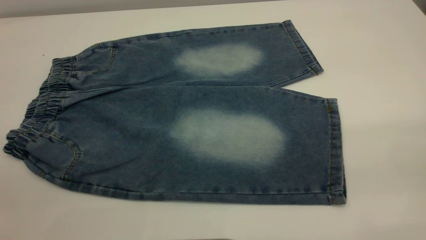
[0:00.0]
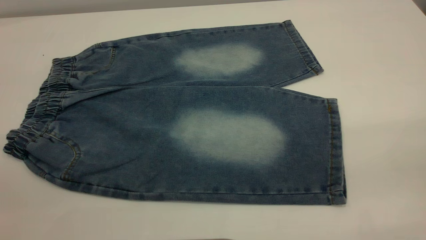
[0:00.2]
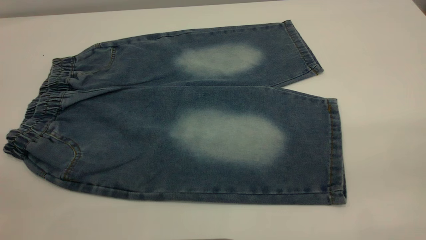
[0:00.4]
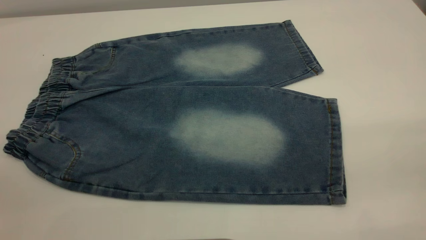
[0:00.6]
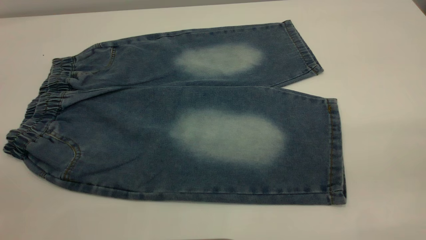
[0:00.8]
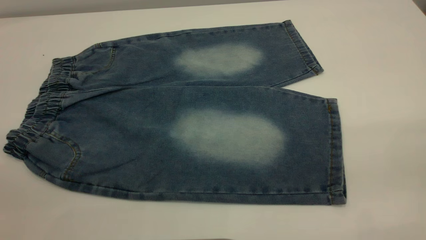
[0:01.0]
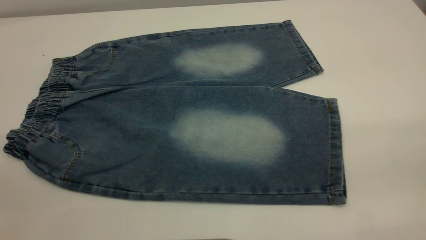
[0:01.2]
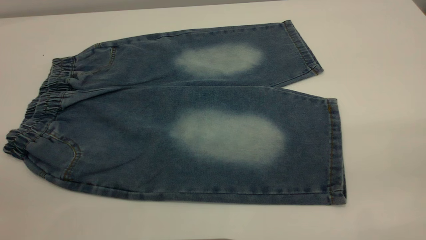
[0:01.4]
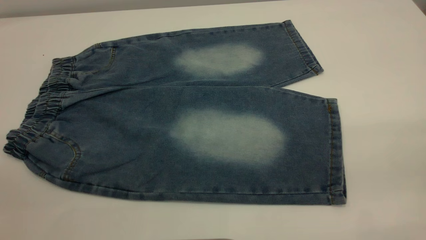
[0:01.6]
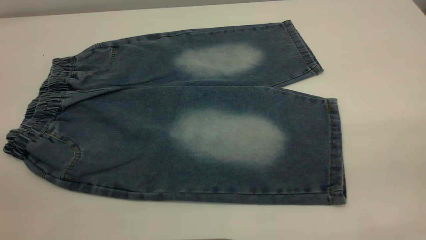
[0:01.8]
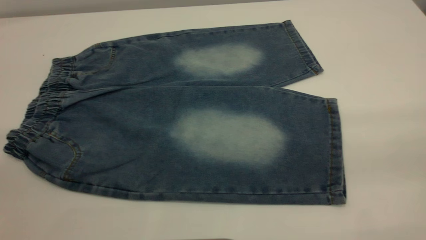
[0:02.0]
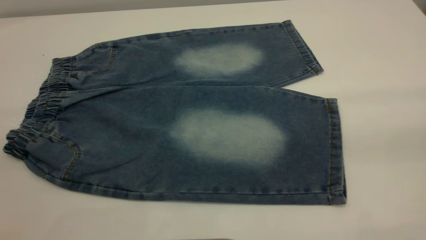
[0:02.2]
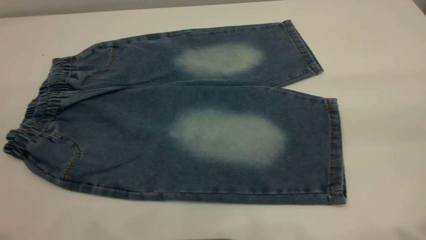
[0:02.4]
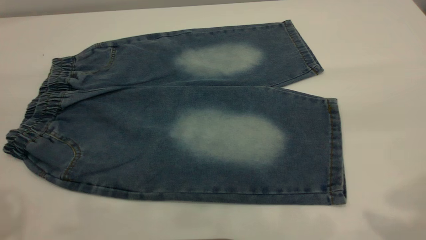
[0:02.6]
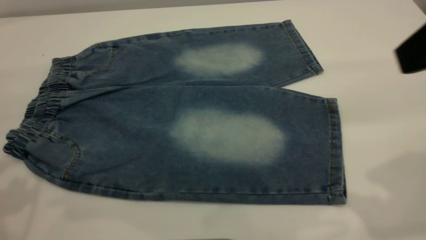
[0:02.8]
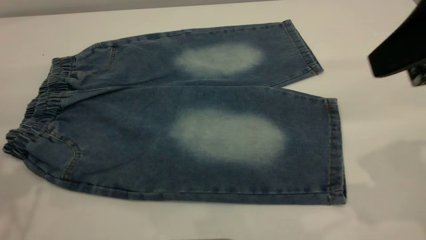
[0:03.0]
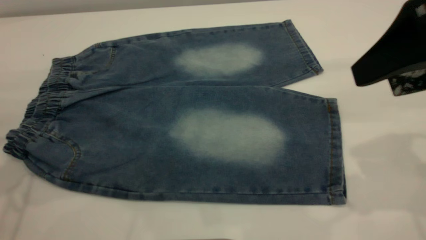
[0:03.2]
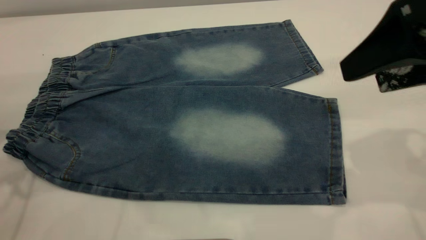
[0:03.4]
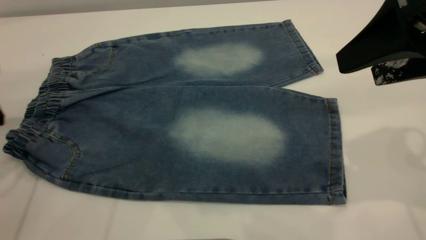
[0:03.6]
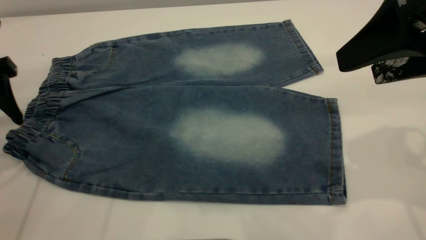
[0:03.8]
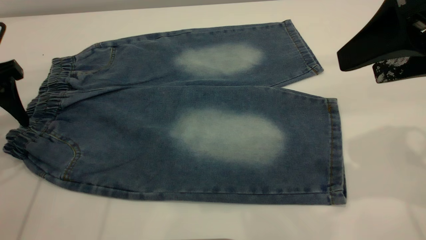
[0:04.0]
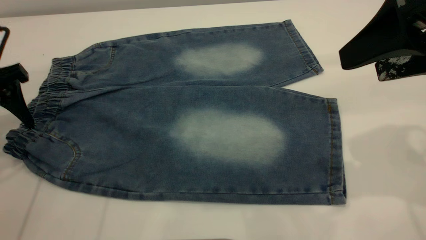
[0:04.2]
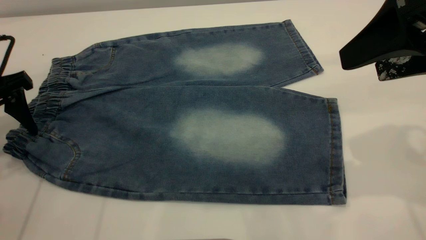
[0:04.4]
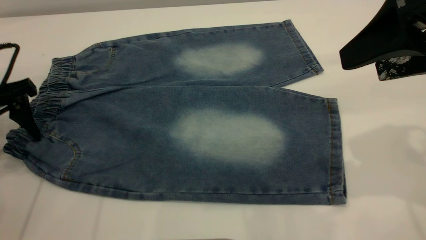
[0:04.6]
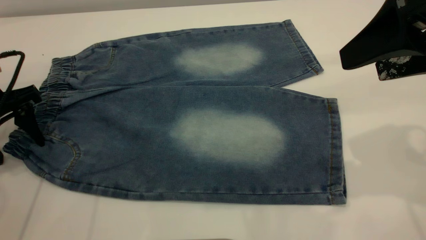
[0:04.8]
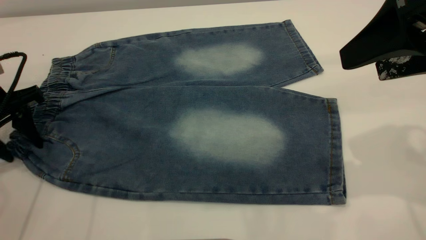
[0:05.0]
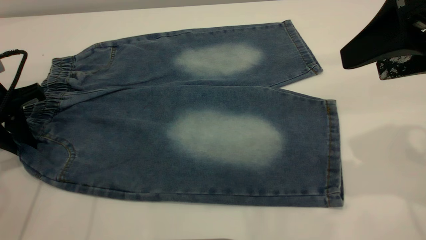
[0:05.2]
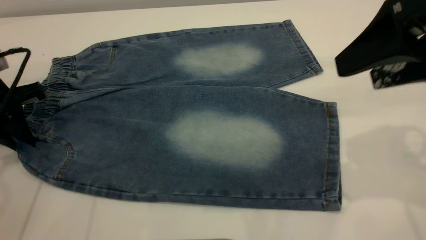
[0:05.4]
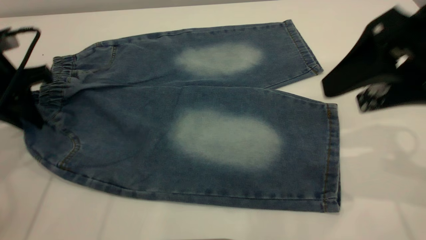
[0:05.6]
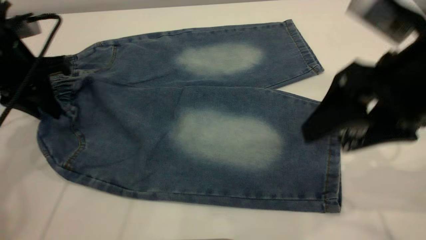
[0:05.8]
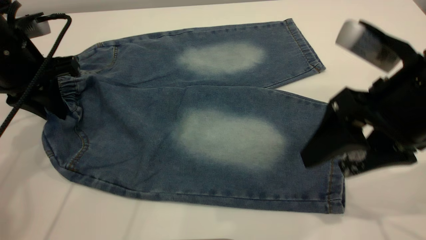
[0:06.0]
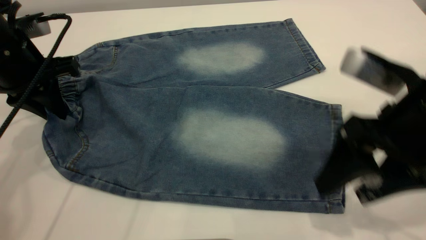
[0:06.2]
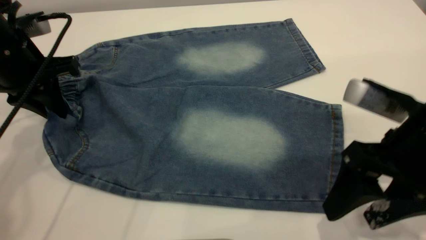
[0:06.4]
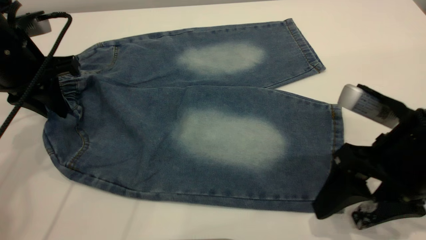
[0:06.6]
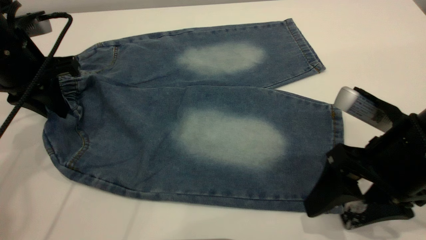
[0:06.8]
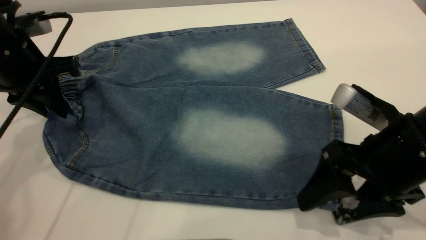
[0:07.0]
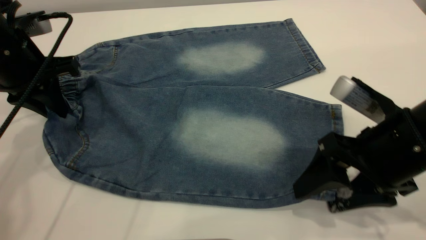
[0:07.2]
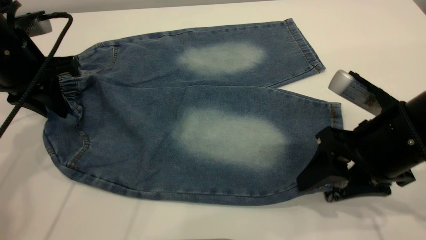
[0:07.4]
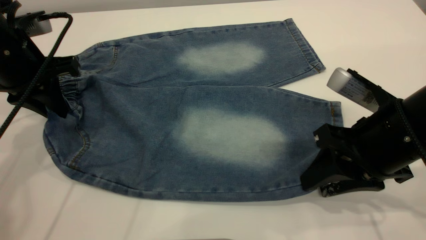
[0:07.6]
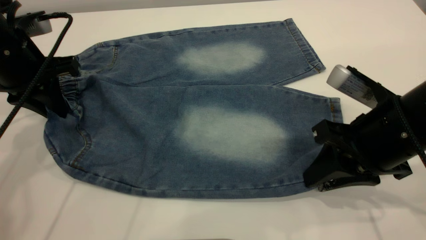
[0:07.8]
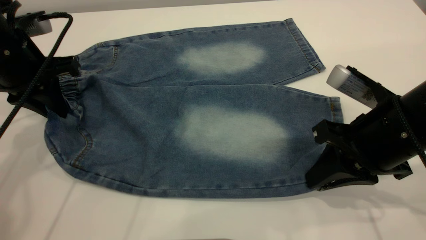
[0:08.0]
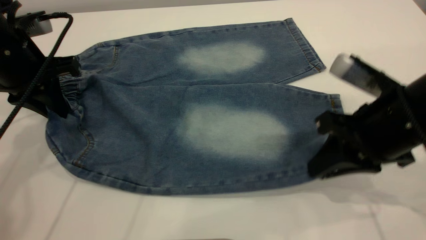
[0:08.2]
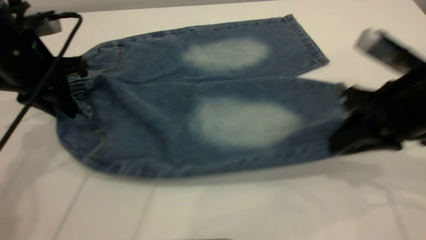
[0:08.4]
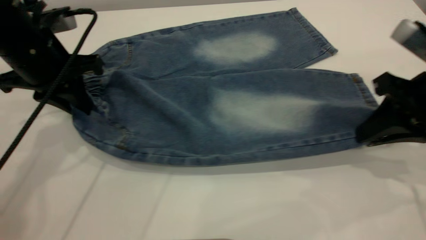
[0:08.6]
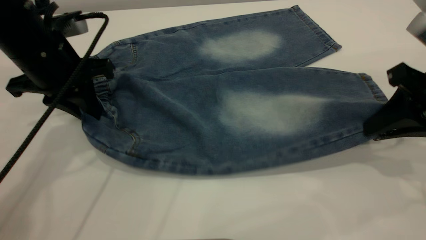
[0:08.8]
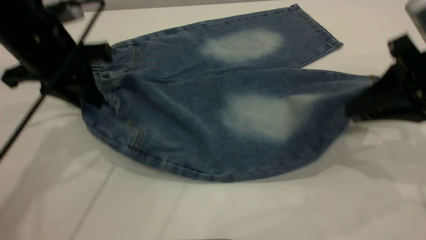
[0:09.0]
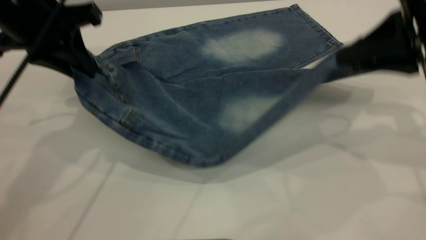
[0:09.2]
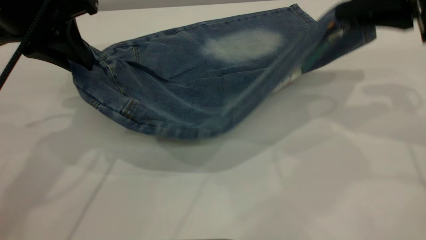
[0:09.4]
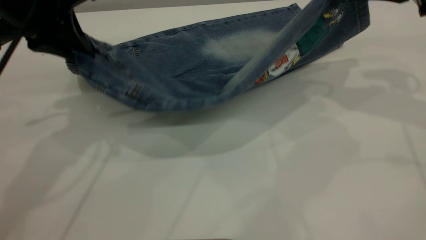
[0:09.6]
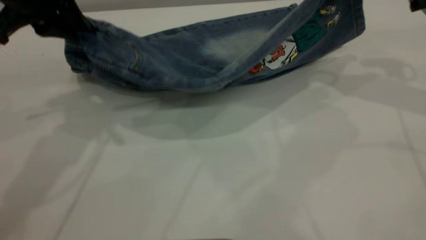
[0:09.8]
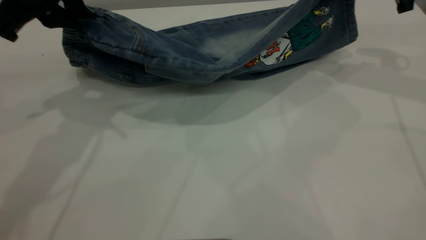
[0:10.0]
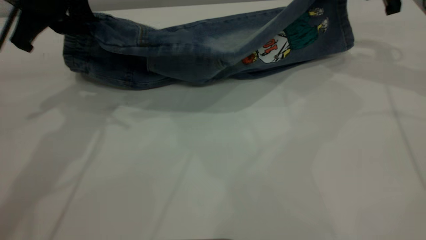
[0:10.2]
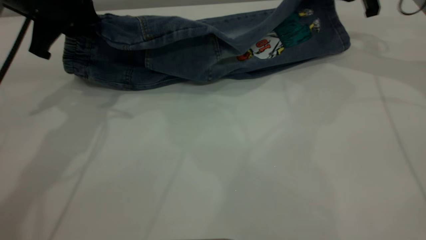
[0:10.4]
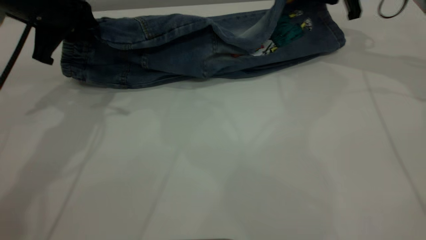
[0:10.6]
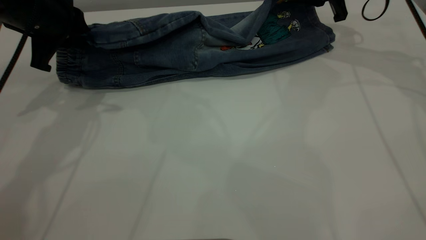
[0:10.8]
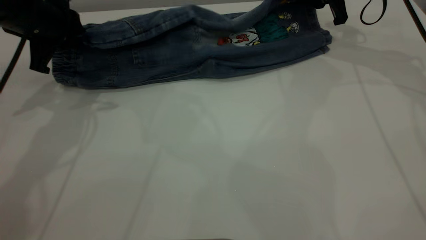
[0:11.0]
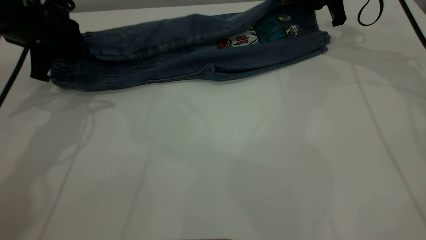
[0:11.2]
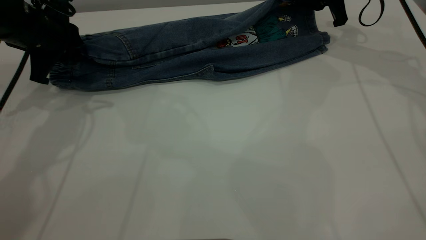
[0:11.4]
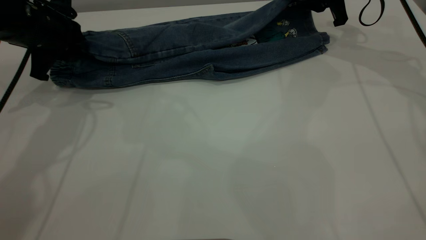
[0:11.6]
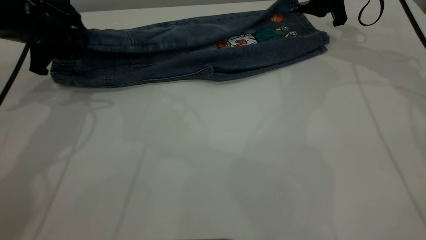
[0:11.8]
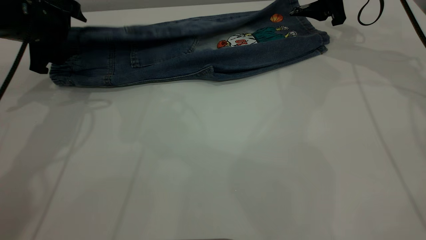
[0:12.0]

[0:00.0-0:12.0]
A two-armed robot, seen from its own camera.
0:00.0 to 0:01.6: The two grippers keep their place.
0:01.6 to 0:03.0: The right gripper goes roughly 20 cm forward.
0:03.0 to 0:04.4: The left gripper heads downward and forward, covering approximately 15 cm.
0:04.4 to 0:06.0: The left gripper heads to the right, covering some 5 cm, and closes its fingers, while the right gripper travels downward by about 10 cm.
0:06.0 to 0:07.6: The right gripper is displaced downward by about 5 cm, and closes.
0:07.6 to 0:09.0: The right gripper goes some 10 cm upward and to the right; the left gripper moves to the right, about 5 cm.
0:09.0 to 0:10.4: The right gripper goes some 20 cm forward.
0:10.4 to 0:12.0: The right gripper changes place by roughly 5 cm, and opens up. The left gripper ends up about 5 cm from where it was, and opens up.

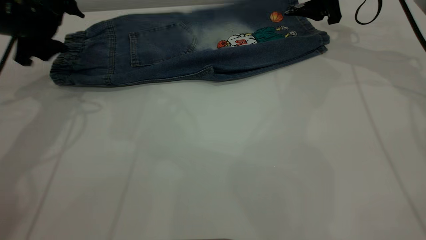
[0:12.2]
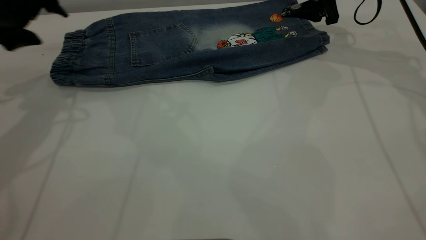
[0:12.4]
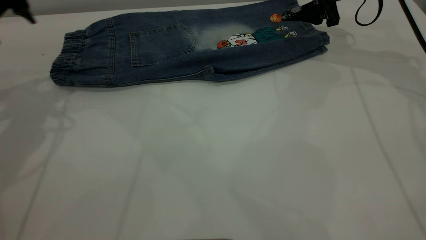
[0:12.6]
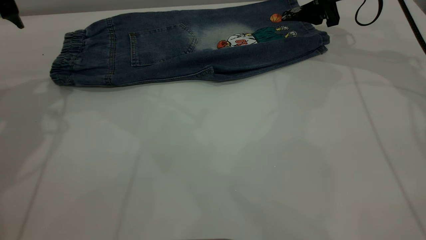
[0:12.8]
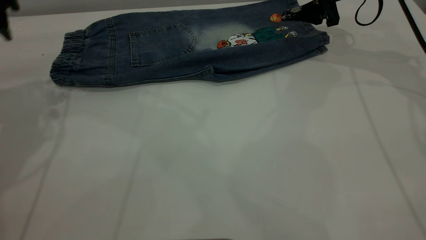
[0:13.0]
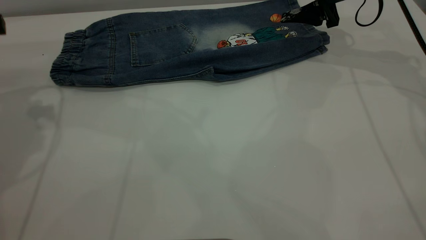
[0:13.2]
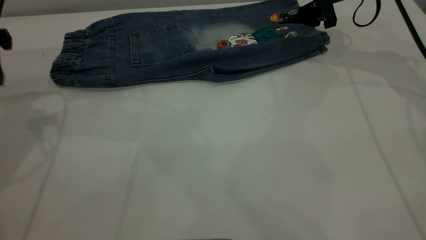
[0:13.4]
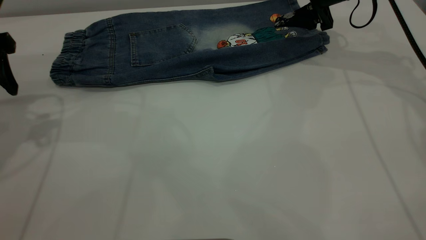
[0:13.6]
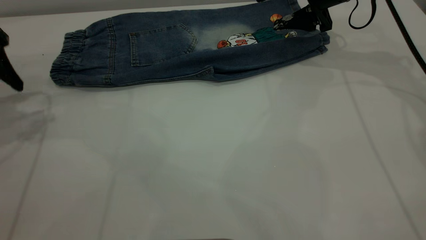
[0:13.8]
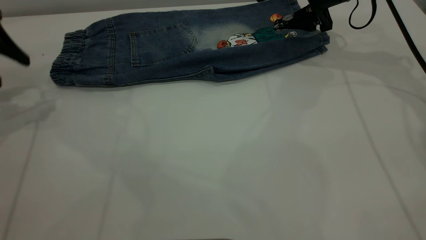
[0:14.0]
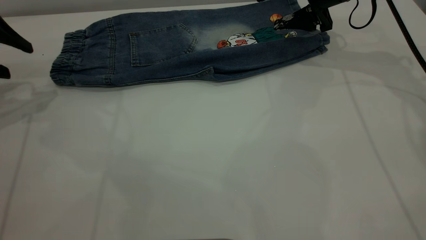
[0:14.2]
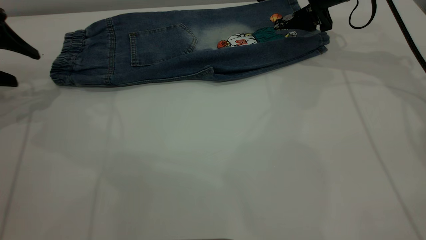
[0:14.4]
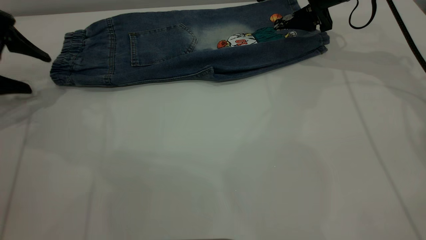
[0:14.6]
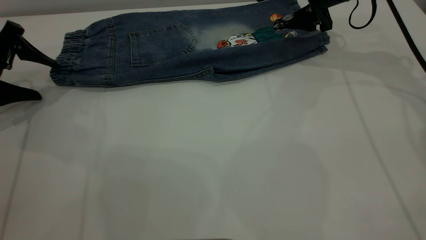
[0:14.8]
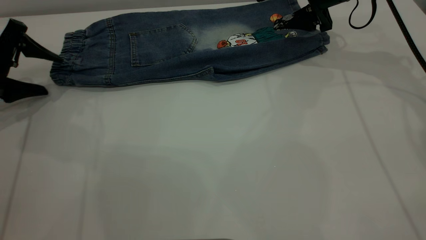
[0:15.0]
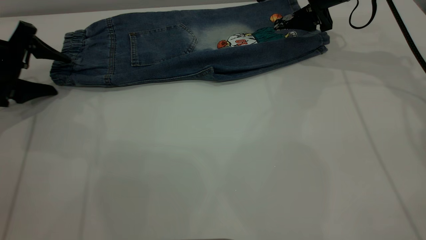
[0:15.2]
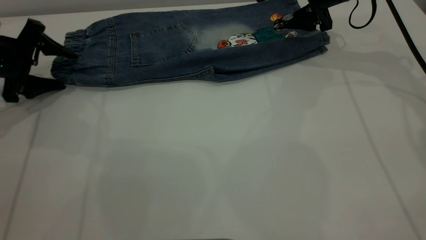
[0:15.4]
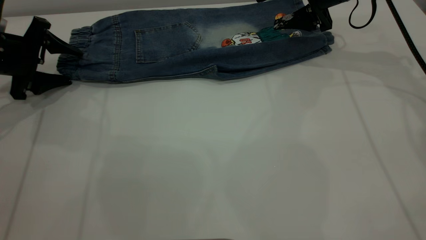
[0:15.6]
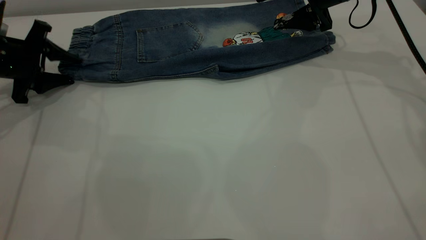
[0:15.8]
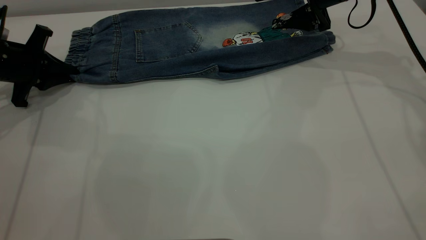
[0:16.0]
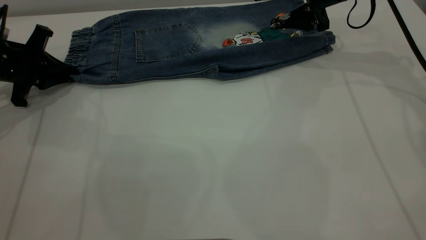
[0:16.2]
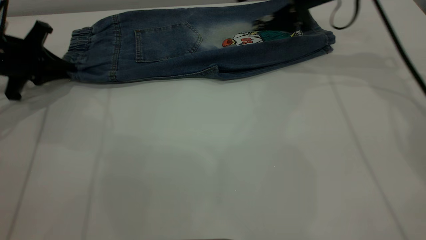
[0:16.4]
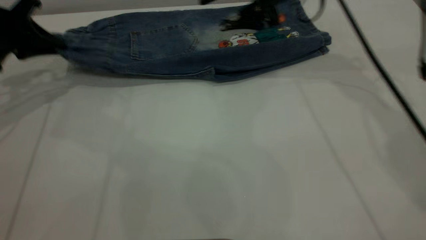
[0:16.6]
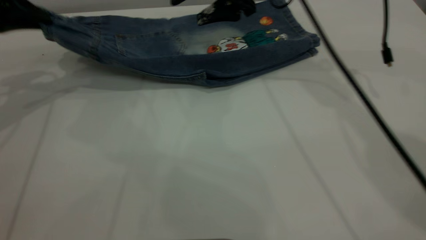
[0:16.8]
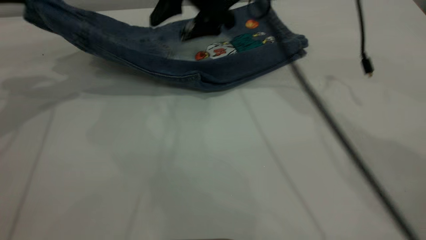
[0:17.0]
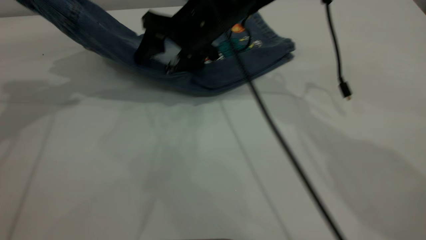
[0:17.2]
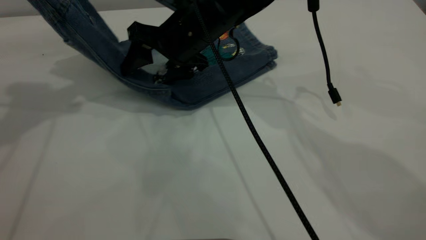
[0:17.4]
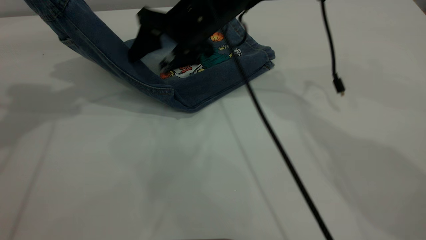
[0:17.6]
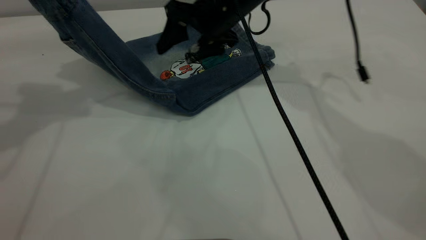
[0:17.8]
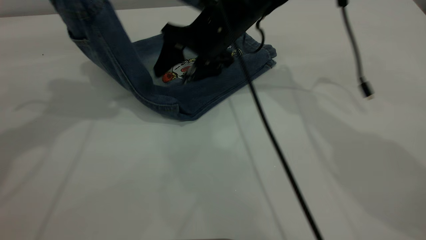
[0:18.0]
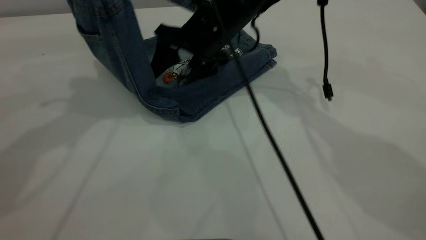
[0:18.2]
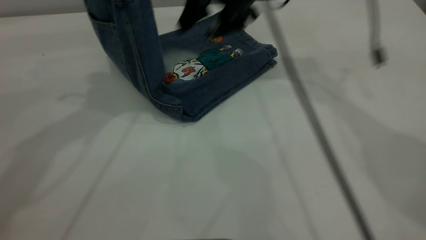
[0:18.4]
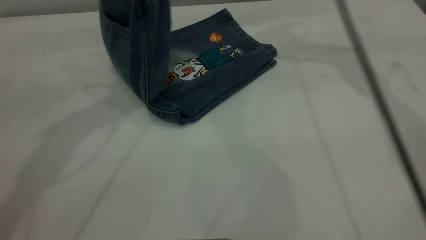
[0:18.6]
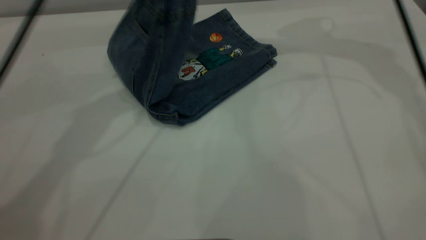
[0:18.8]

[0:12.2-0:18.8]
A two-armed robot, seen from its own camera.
0:12.2 to 0:13.8: The left gripper heads to the left and backward, covering some 10 cm.
0:13.8 to 0:15.4: The left gripper shifts approximately 10 cm downward.
0:15.4 to 0:17.2: The left gripper moves upward, about 20 cm, and closes up; the right gripper heads to the left, covering about 20 cm.
0:17.2 to 0:18.8: The right gripper heads to the right and upward, covering about 25 cm. The left gripper goes about 20 cm to the right.
